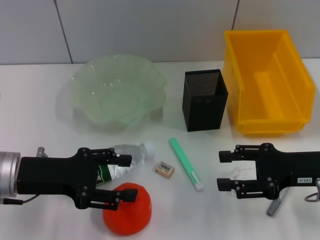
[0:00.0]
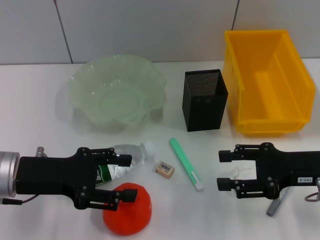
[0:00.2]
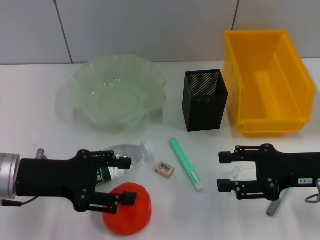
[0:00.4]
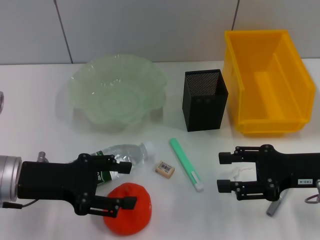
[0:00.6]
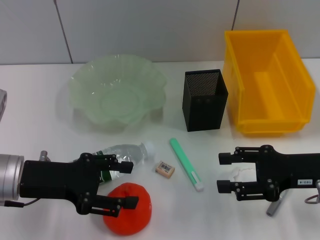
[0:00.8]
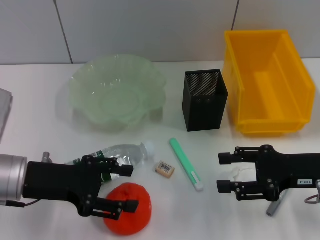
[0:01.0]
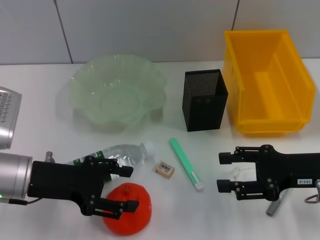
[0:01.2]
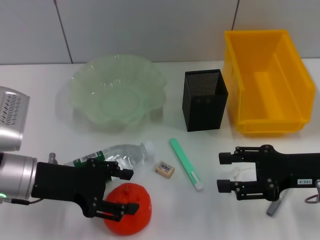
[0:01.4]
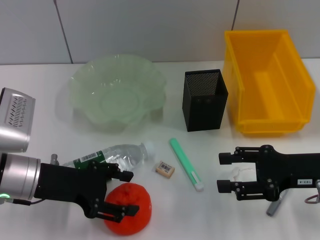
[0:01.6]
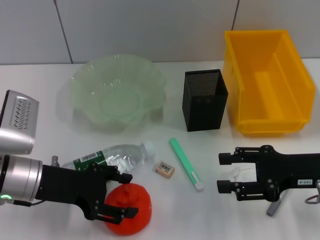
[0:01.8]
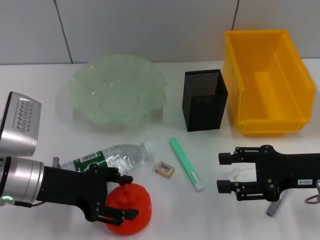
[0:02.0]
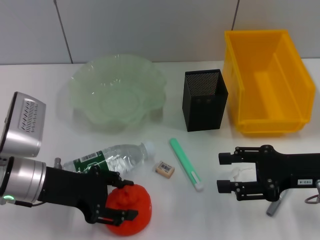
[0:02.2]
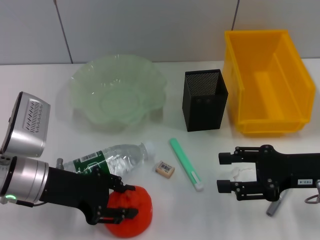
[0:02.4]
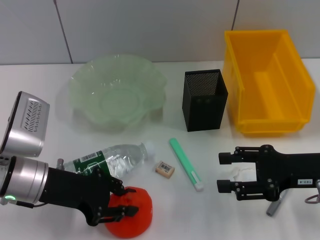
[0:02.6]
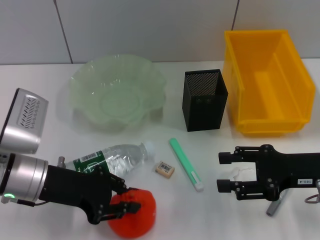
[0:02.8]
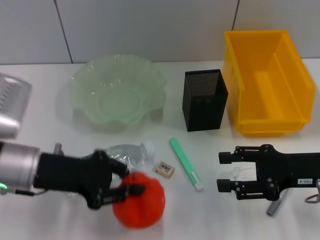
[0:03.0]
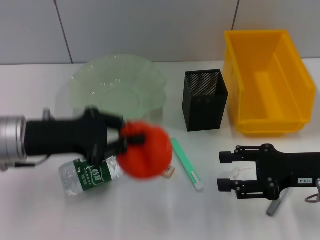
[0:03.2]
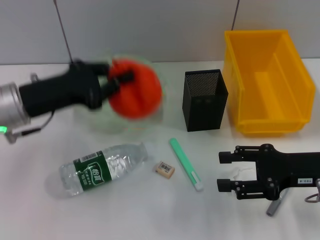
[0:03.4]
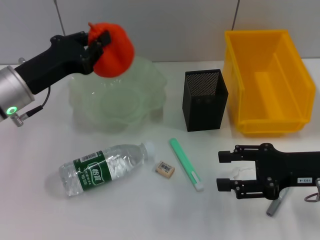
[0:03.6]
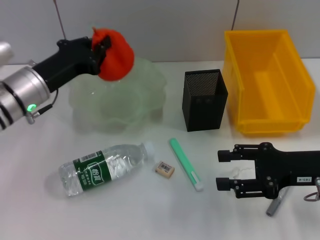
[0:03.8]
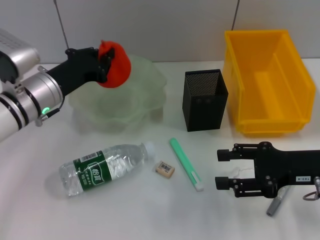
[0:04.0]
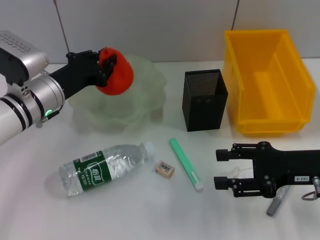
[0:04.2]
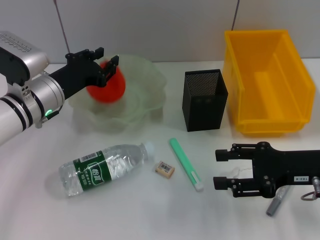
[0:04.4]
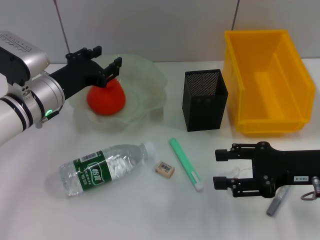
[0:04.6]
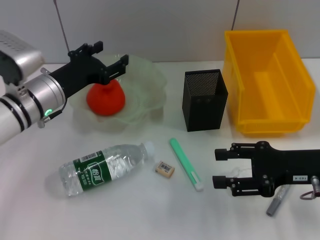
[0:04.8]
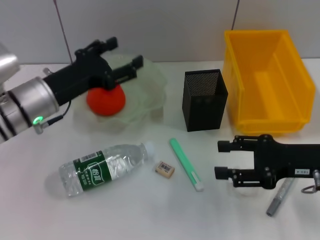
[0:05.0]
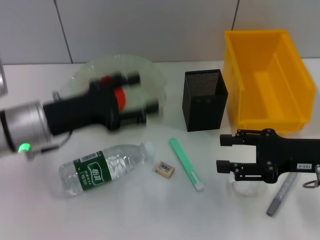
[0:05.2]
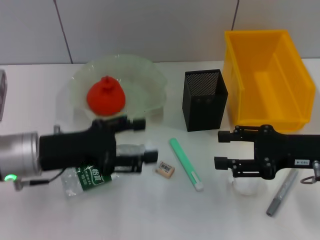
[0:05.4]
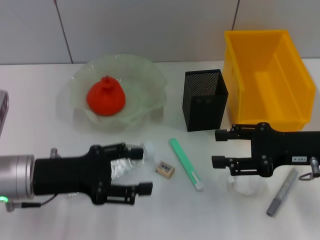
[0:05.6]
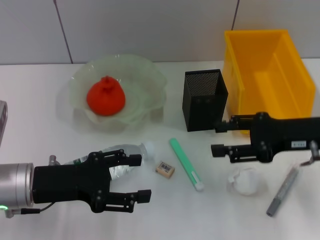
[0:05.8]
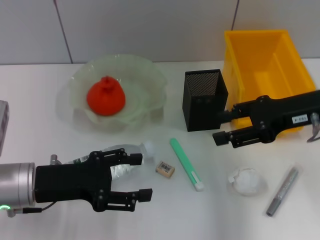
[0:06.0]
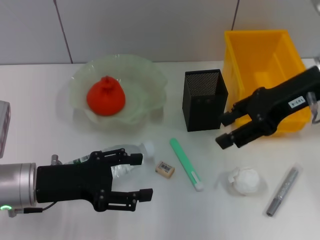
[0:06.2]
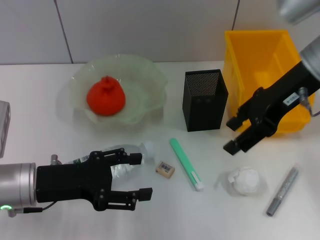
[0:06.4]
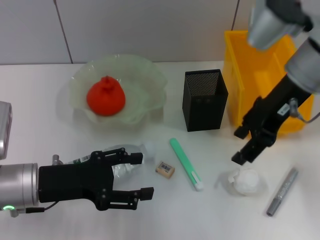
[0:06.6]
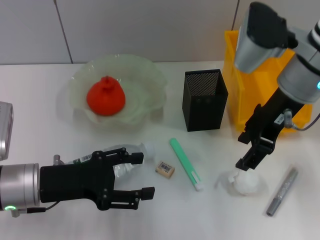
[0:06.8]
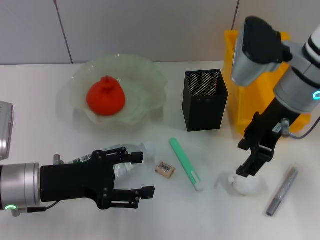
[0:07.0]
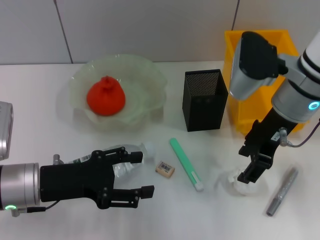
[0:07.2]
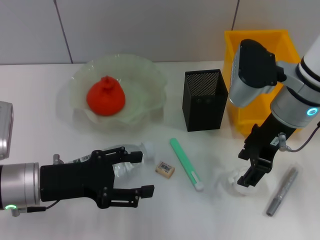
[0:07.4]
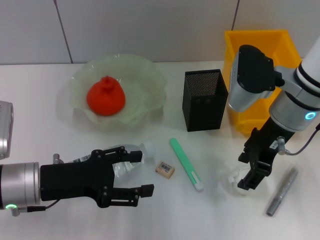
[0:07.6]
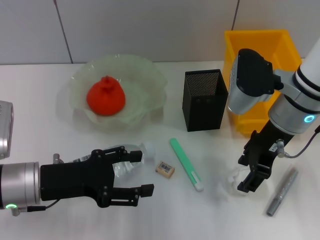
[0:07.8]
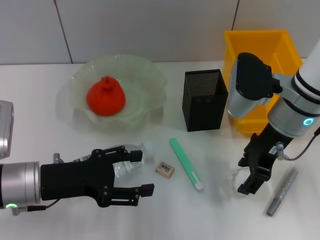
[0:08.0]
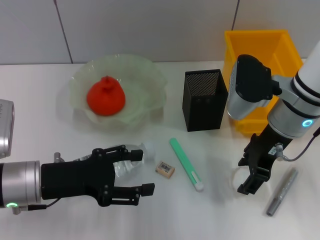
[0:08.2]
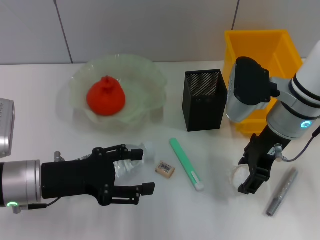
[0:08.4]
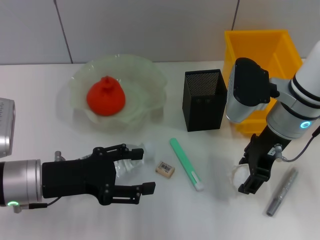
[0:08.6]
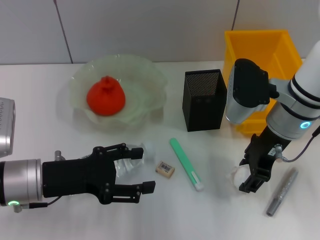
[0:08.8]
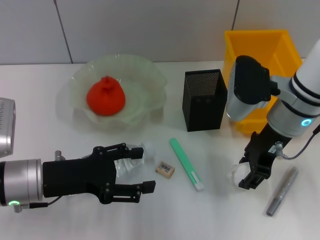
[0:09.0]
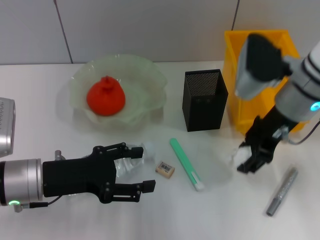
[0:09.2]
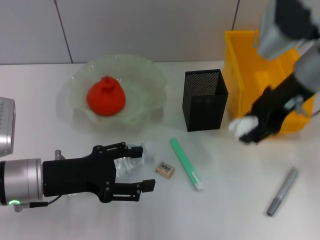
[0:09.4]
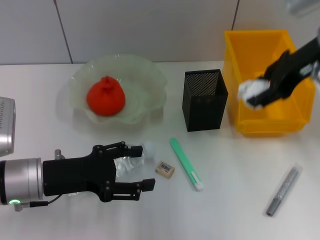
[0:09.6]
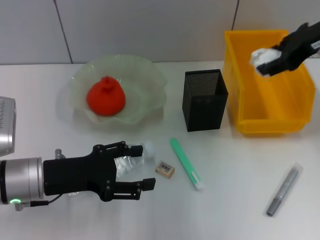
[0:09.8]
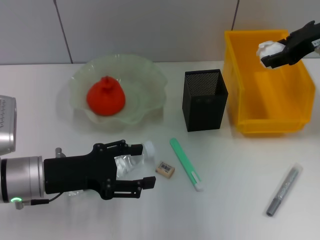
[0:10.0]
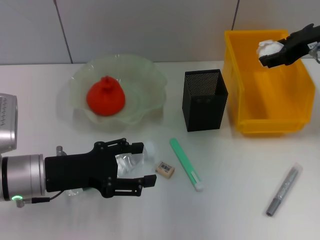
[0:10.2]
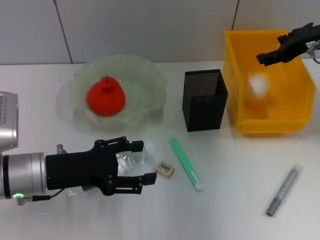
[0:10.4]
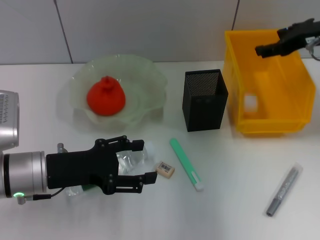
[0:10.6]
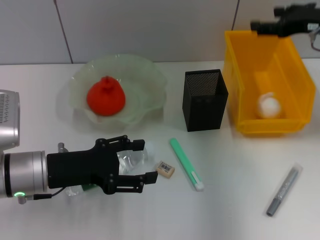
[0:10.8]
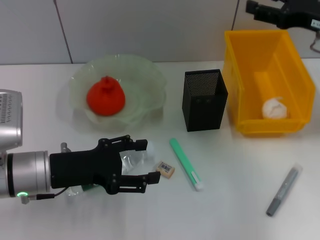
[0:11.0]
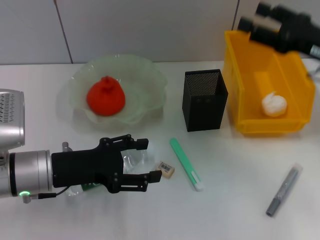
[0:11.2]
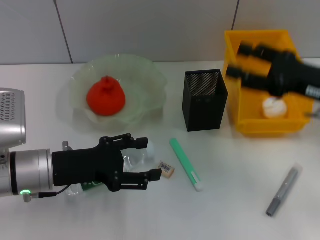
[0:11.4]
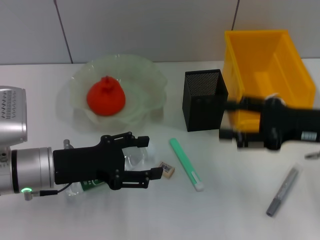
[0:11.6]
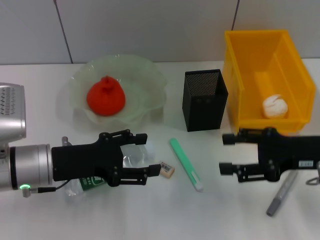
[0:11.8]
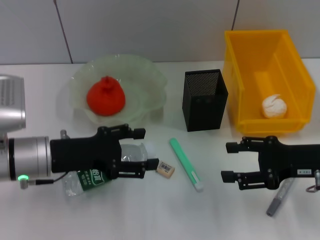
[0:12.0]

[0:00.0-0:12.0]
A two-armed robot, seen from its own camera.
Step, 0.0 to 2.6 s: Grab the orange with the left hand.
Step, 2.8 to 4.6 s: Place the orange into the fruit bowl with the left hand.
Step, 4.8 to 8.8 s: Grab the paper ball with the right hand.
Step, 9.0 to 10.6 s: Place the paper ball into the trash can with the right hand.
0.0 to 1.6 s: There are only small adjustments of the grippers.
1.6 to 3.0 s: The left gripper closes its fingers.
3.0 to 4.4 s: The left gripper shifts approximately 10 cm forward.
4.4 to 6.0 s: The left gripper travels backward by approximately 10 cm, and opens its fingers. The right gripper moves upward and forward, roughly 10 cm.
6.0 to 7.6 s: The right gripper travels to the left by about 10 cm, and reaches some 5 cm upward, then returns.
7.6 to 9.0 s: There are only small adjustments of the grippers.
9.0 to 10.4 s: The right gripper is displaced to the right, upward and forward by roughly 15 cm.
10.4 to 12.0 s: The right gripper goes about 20 cm backward and downward.

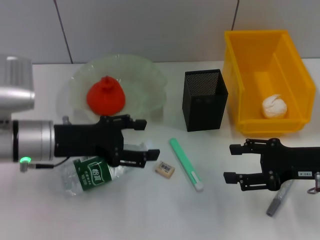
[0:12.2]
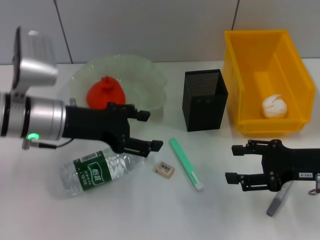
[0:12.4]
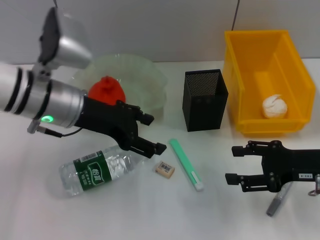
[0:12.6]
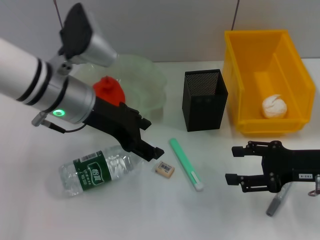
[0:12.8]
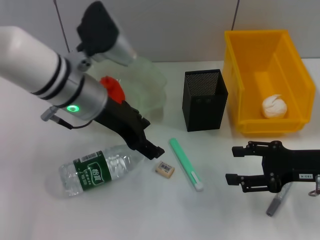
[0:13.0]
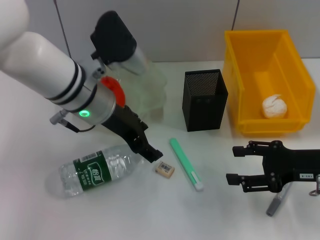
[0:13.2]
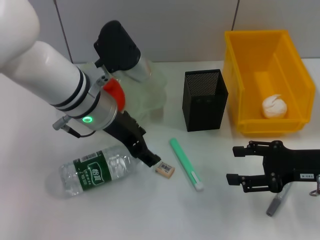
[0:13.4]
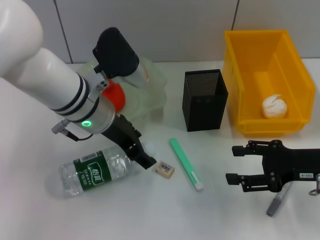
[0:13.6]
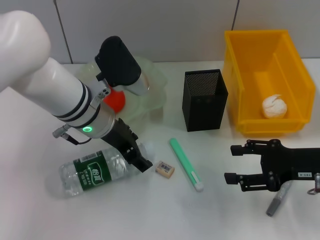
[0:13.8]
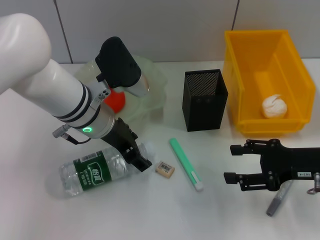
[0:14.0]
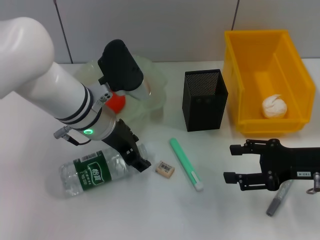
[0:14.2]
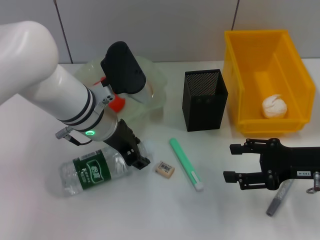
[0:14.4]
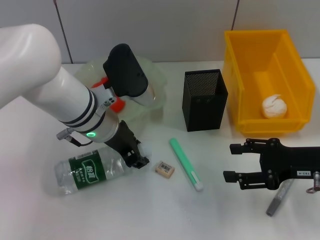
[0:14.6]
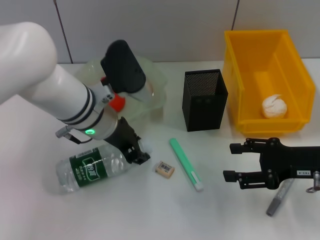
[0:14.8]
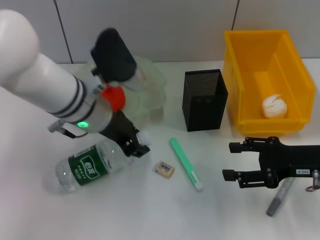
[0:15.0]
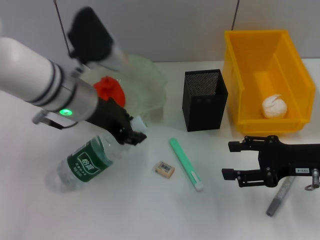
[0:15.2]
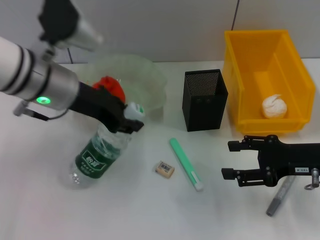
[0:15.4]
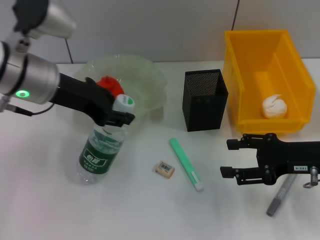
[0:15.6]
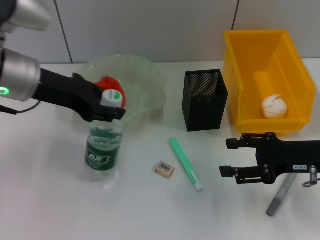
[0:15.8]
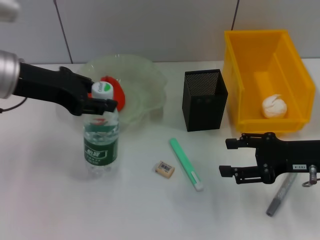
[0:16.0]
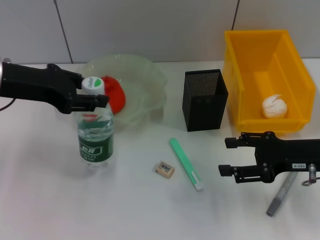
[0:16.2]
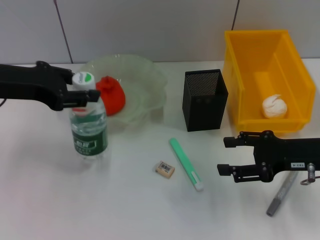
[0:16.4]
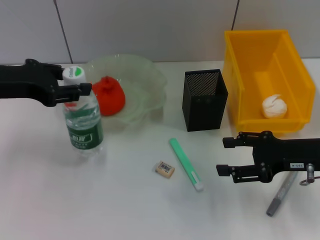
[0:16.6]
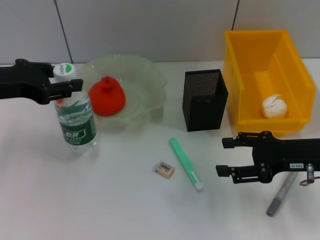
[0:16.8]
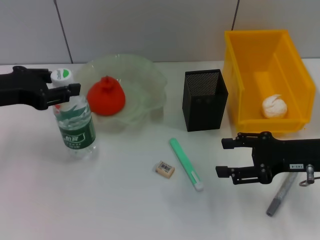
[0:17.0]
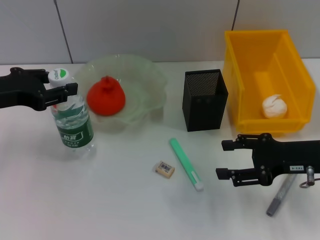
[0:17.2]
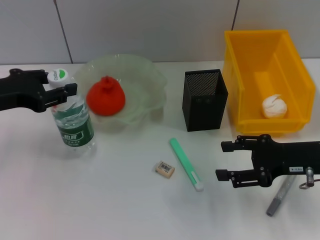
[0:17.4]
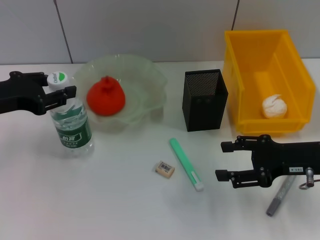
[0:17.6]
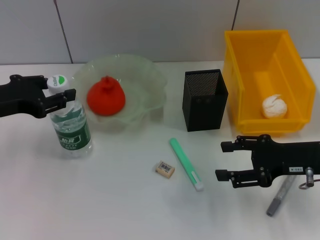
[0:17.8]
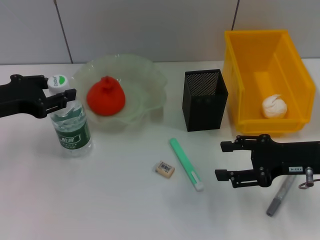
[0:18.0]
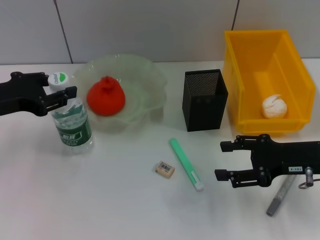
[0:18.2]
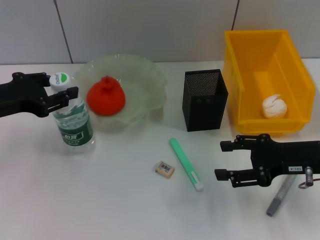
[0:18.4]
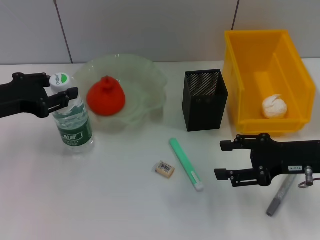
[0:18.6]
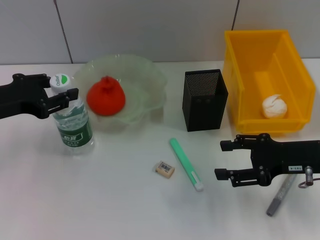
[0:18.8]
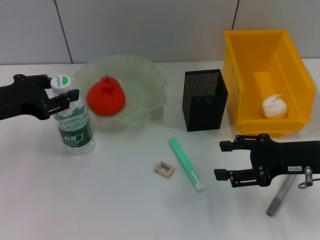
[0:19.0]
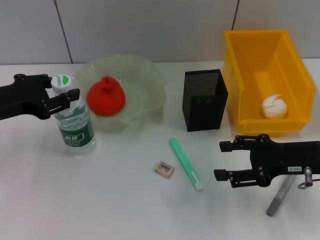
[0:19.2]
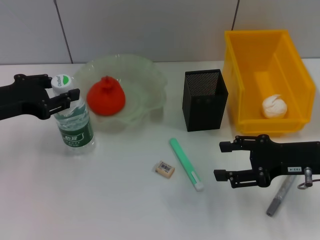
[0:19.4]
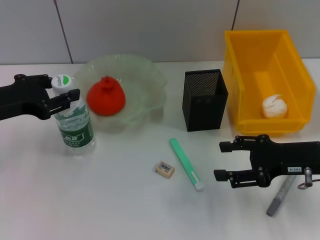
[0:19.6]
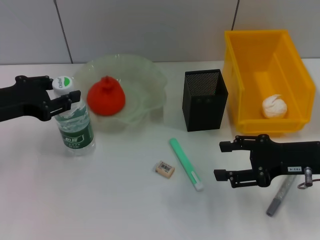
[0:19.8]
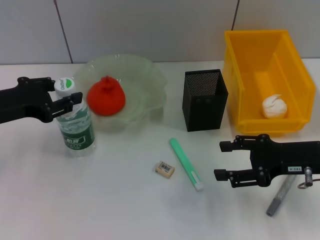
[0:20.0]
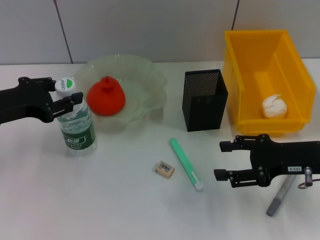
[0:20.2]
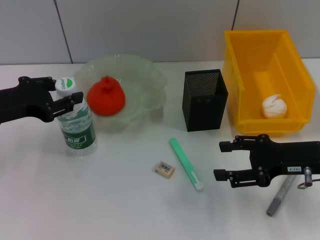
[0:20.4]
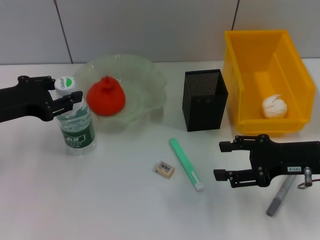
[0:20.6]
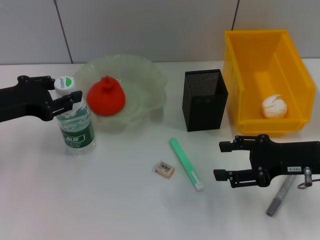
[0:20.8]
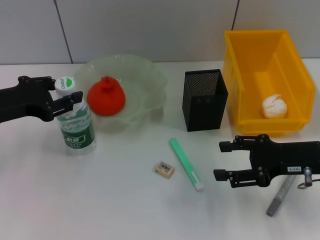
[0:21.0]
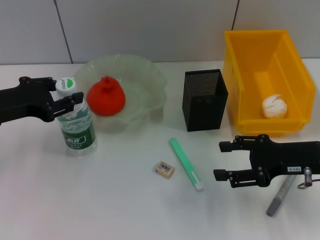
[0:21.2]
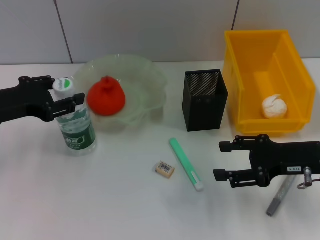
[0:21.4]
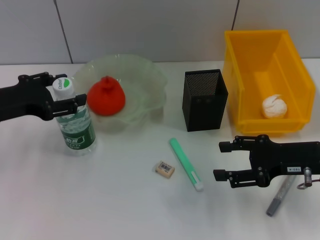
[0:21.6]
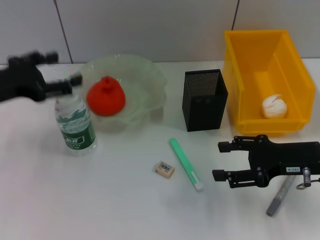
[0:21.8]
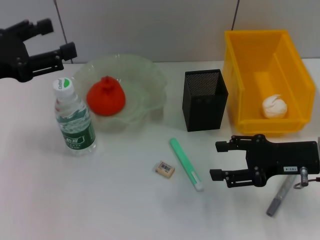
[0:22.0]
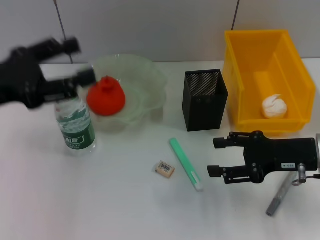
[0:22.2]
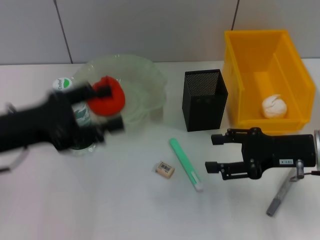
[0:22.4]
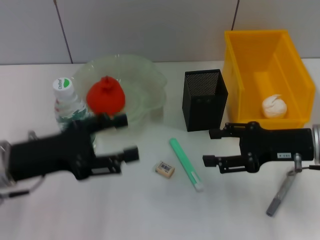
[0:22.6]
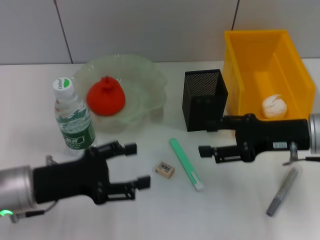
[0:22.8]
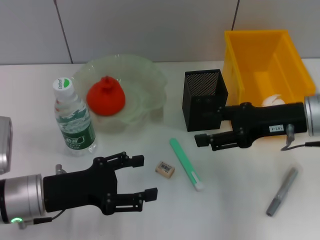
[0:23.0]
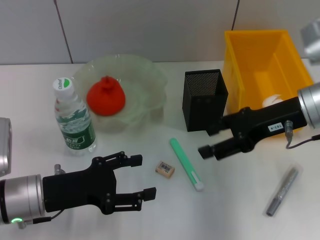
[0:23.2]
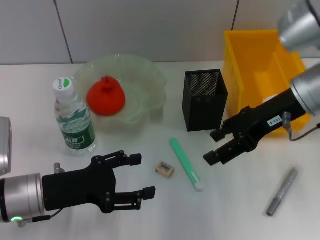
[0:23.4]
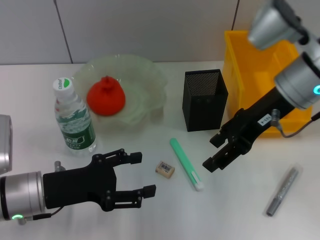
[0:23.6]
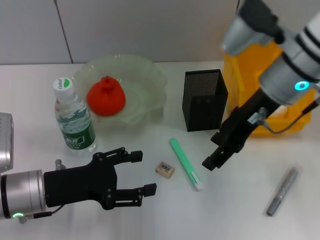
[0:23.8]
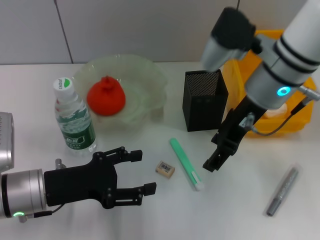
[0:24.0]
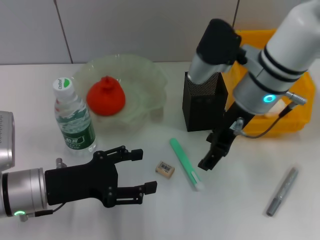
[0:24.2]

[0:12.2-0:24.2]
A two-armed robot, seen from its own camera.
Step, 12.2 to 14.6 s: Grab the water bottle with the left hand.
Step, 14.8 to 21.8 s: Place the water bottle on the table with the left hand.
12.2 to 13.8 s: The left gripper heads to the right and forward, covering some 10 cm.
13.8 to 15.2 s: The left gripper closes up.
15.2 to 16.6 s: The left gripper travels to the left by about 15 cm.
16.6 to 18.2 s: The left gripper moves downward, roughly 5 cm.
18.2 to 21.2 s: Both grippers stay about where they are.
21.2 to 22.6 s: The left gripper shifts about 5 cm backward, moves some 5 cm upward and comes back, and opens up.
22.6 to 24.2 s: The right gripper moves to the left, upward and forward, about 15 cm; the left gripper goes about 5 cm downward.
